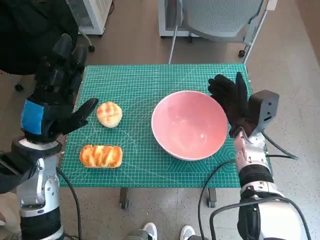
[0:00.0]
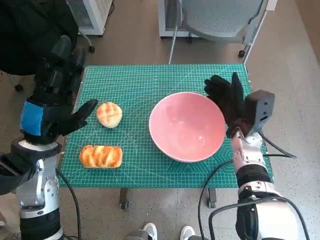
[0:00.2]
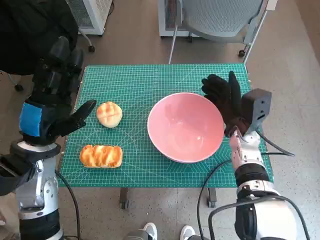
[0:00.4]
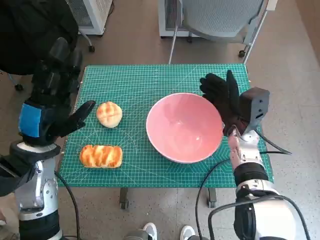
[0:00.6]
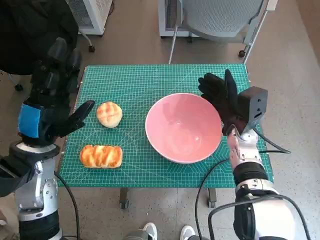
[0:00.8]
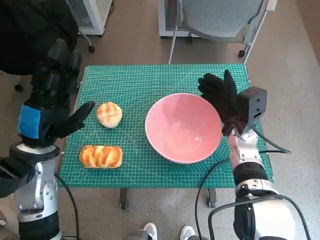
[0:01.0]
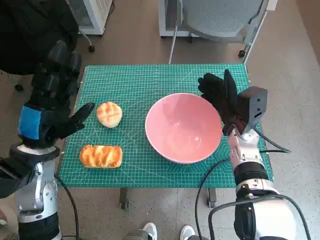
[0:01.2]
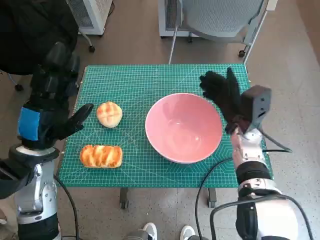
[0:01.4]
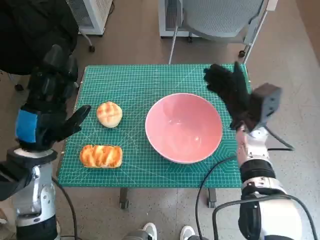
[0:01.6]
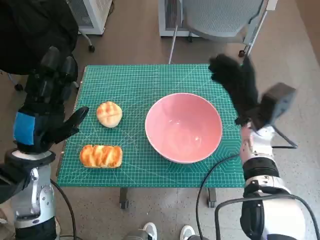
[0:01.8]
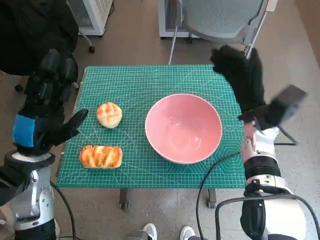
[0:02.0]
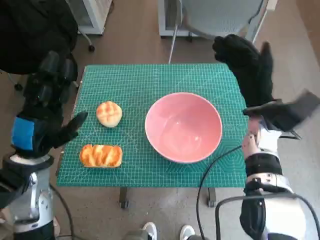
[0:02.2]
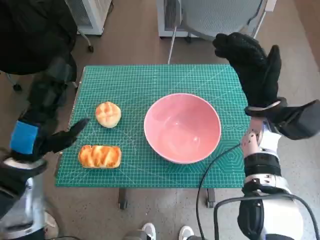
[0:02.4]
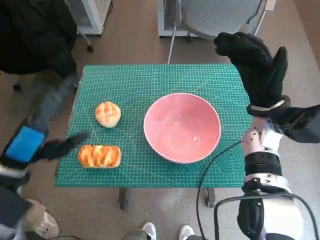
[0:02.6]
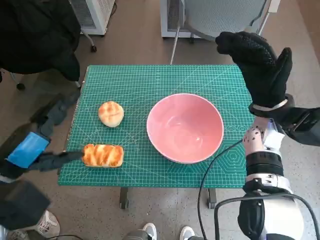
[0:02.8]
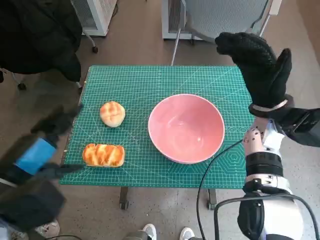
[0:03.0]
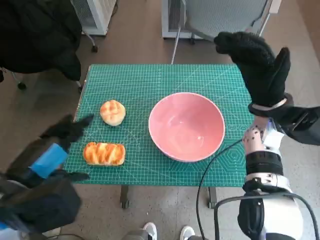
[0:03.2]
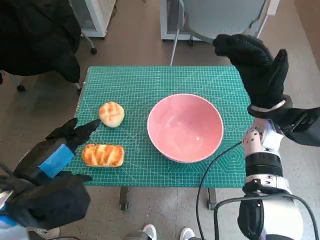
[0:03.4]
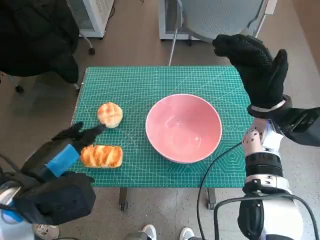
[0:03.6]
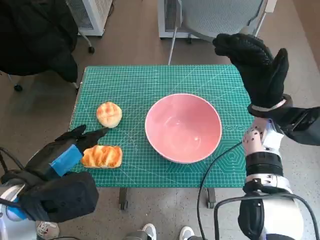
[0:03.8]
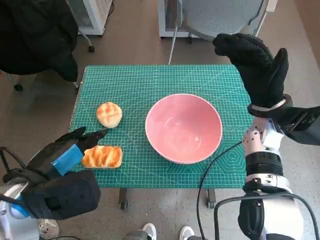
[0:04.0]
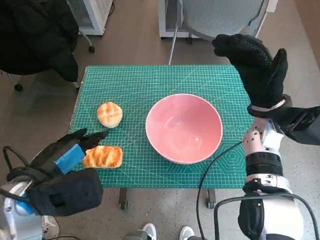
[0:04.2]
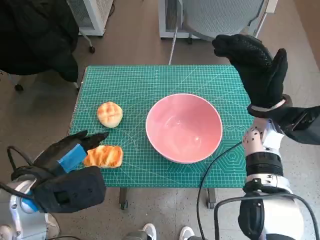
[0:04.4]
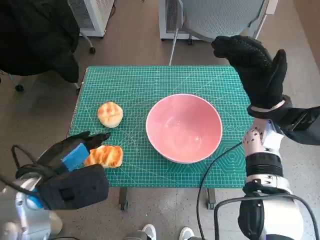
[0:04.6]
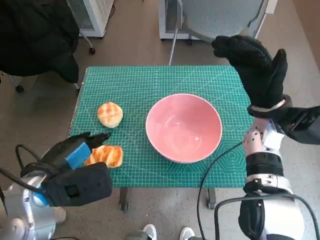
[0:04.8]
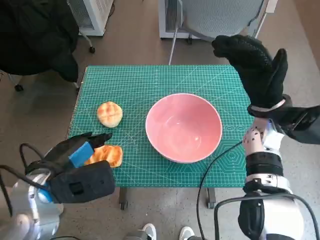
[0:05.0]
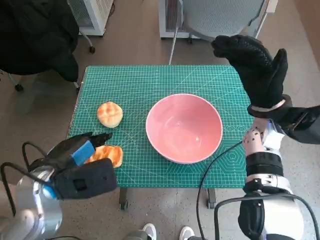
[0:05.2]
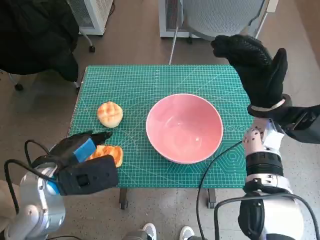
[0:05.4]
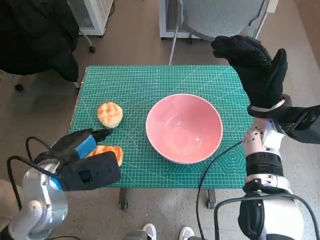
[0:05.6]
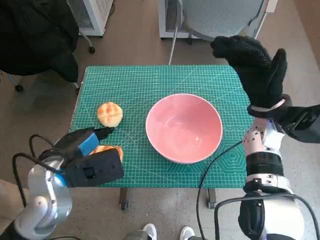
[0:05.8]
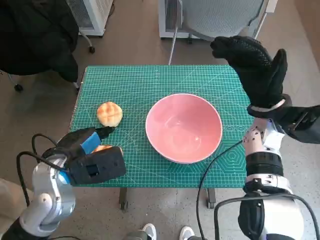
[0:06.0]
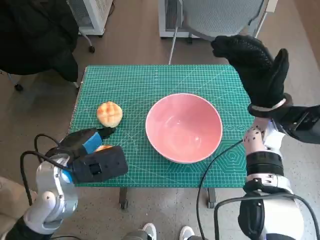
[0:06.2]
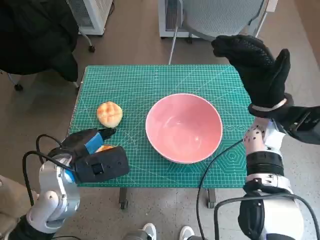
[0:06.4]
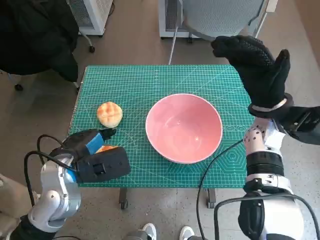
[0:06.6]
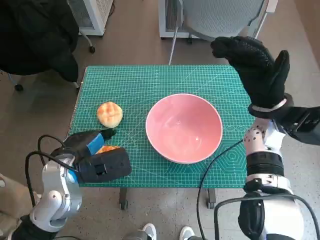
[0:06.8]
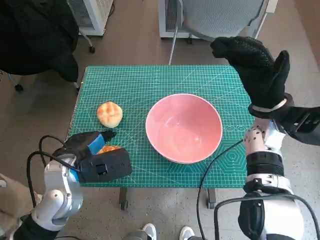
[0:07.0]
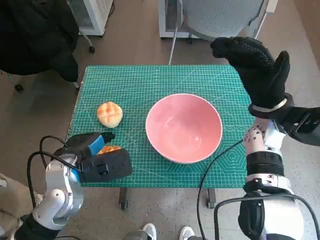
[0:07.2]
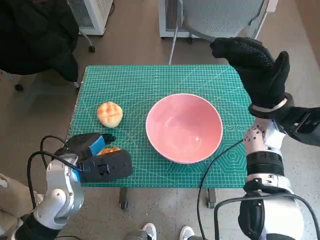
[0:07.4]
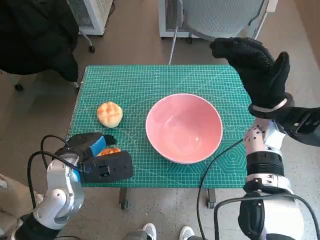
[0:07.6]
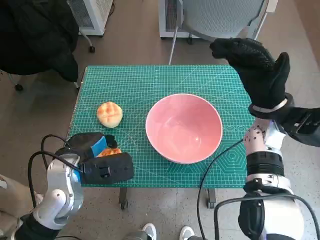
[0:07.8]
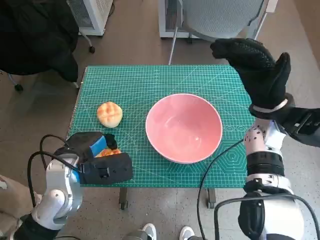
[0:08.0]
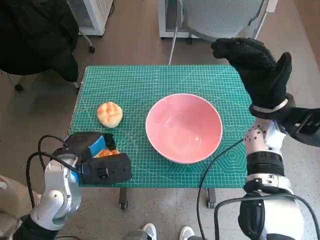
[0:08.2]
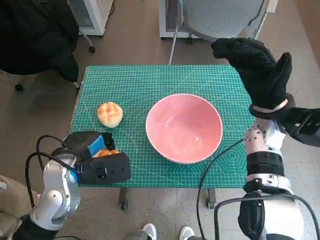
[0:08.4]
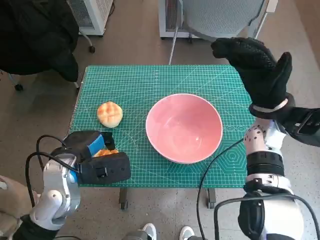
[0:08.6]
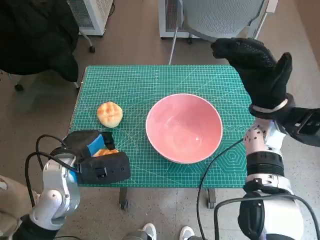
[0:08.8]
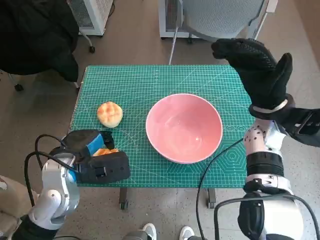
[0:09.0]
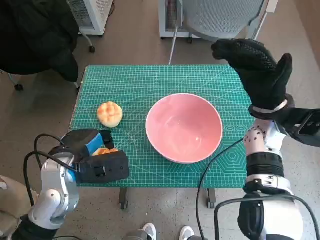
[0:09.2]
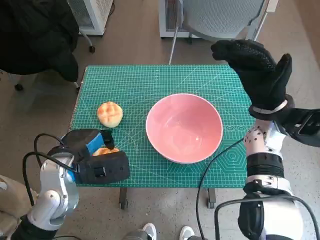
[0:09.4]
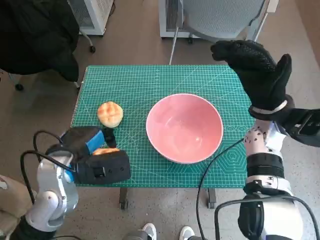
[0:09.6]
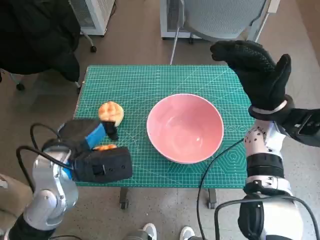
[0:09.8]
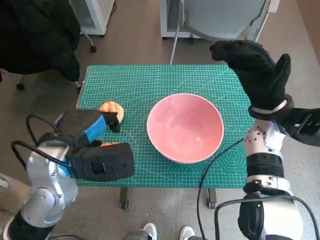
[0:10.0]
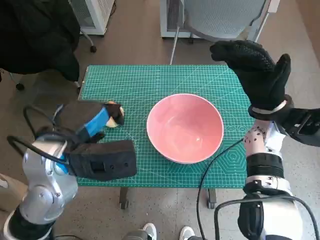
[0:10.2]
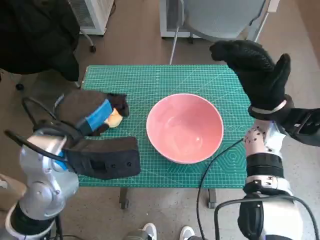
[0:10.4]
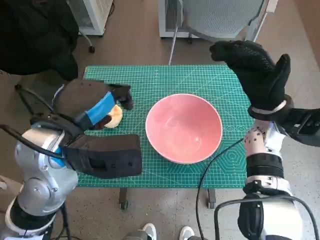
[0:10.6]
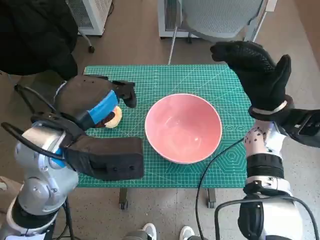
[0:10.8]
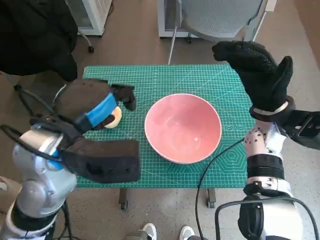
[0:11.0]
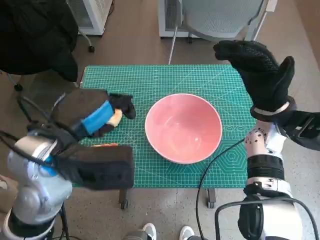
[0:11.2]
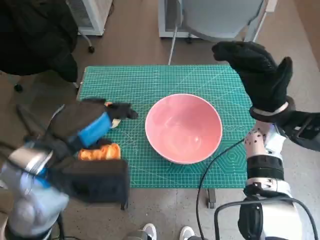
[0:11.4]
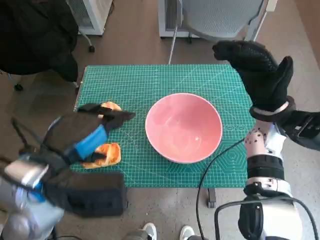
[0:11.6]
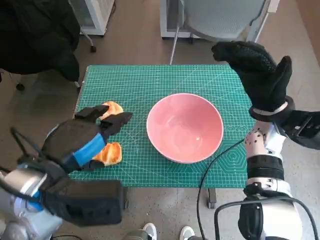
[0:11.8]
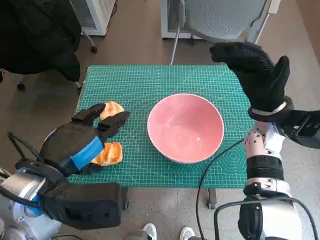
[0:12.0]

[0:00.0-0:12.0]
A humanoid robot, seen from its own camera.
0:00.0 to 0:01.6: The hands stay close to where they were, moving slightly.
0:01.6 to 0:03.0: The left hand heads backward, covering about 5 cm; the right hand travels upward by roughly 5 cm.
0:04.4 to 0:06.0: The left hand changes place by roughly 5 cm.
0:06.0 to 0:07.6: The hands make only small movements.
0:07.6 to 0:09.0: Both hands stay put.
0:09.0 to 0:10.4: The left hand goes approximately 10 cm upward.
0:10.4 to 0:12.0: The left hand moves backward, approximately 5 cm.

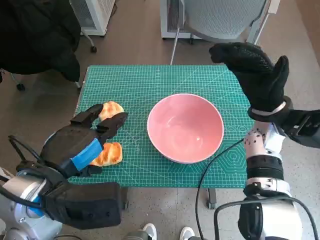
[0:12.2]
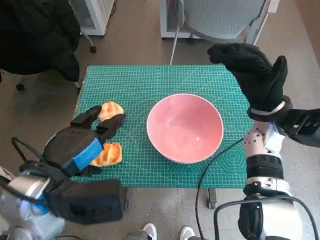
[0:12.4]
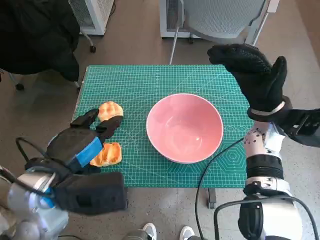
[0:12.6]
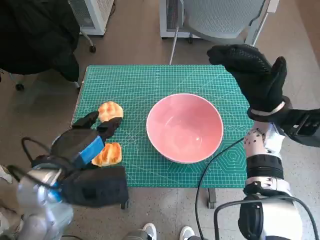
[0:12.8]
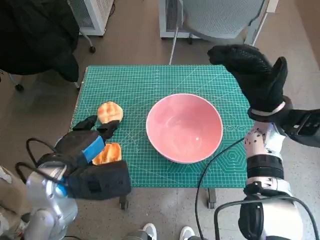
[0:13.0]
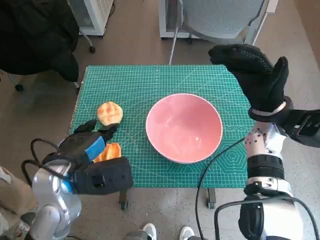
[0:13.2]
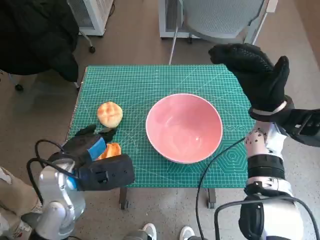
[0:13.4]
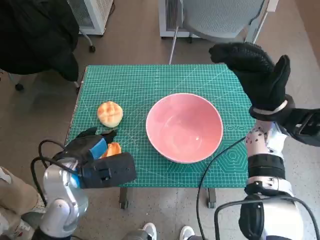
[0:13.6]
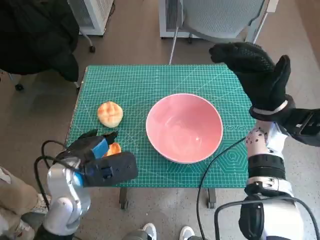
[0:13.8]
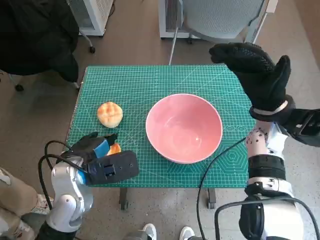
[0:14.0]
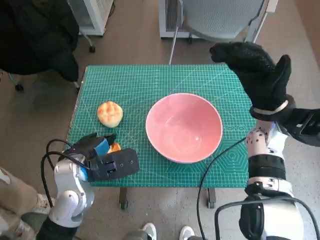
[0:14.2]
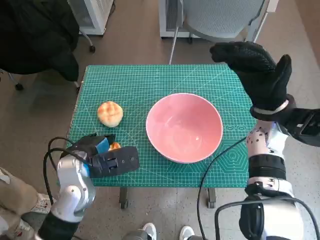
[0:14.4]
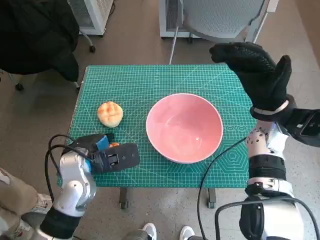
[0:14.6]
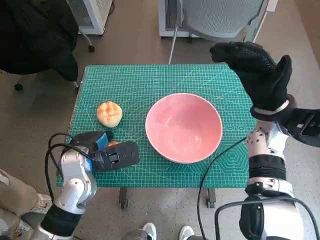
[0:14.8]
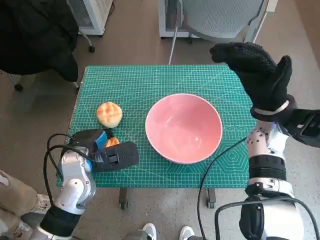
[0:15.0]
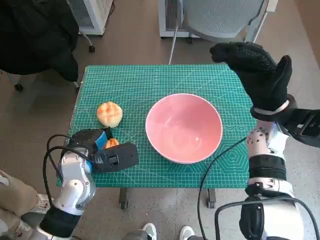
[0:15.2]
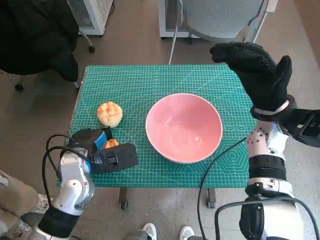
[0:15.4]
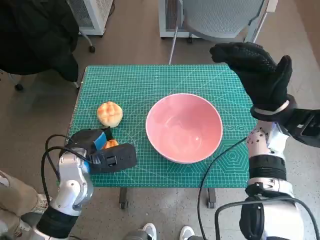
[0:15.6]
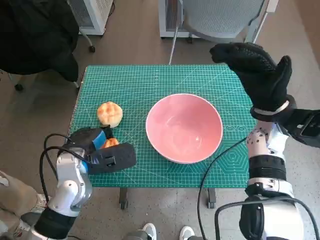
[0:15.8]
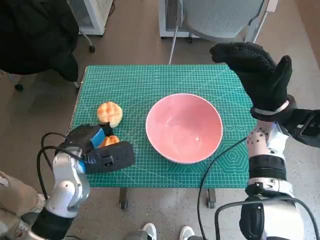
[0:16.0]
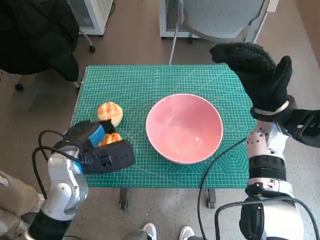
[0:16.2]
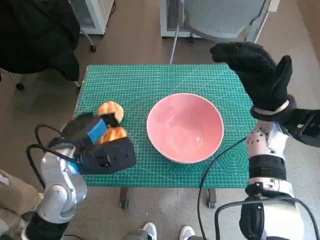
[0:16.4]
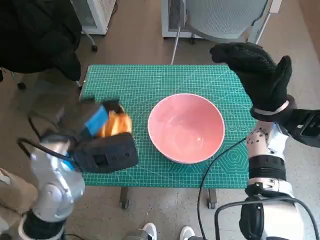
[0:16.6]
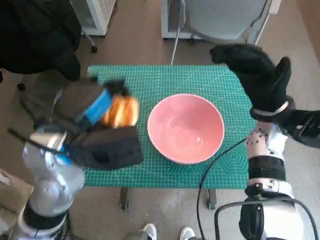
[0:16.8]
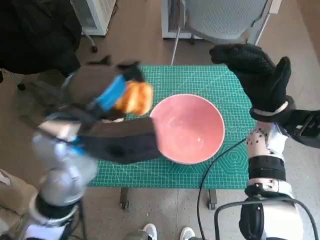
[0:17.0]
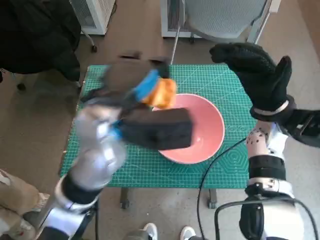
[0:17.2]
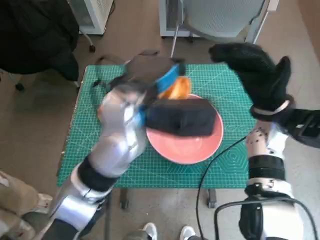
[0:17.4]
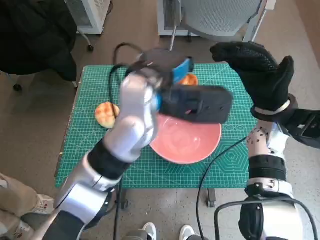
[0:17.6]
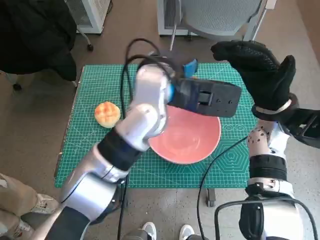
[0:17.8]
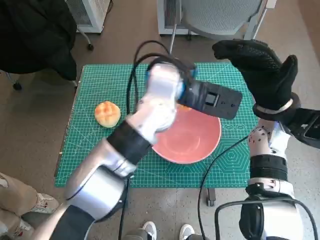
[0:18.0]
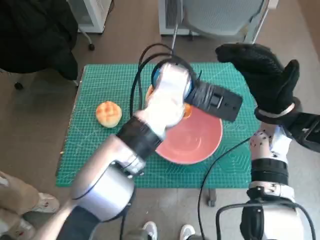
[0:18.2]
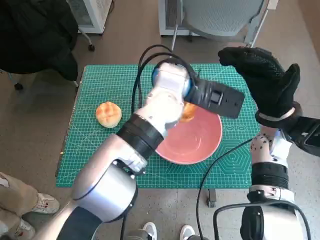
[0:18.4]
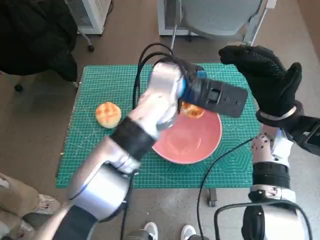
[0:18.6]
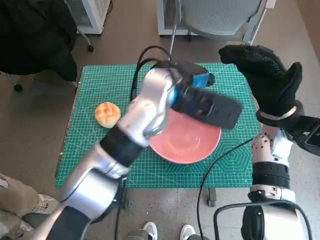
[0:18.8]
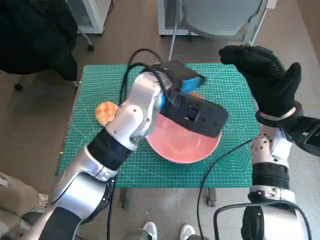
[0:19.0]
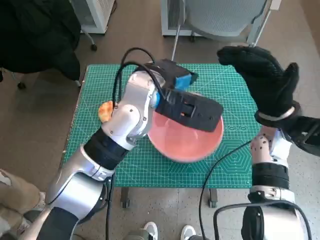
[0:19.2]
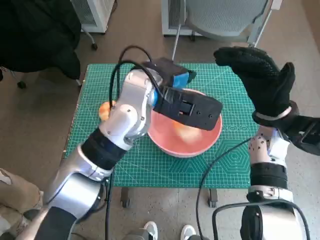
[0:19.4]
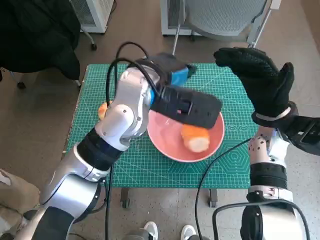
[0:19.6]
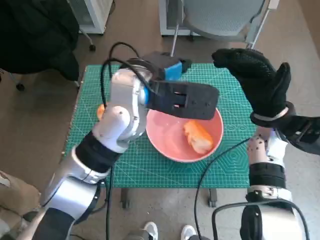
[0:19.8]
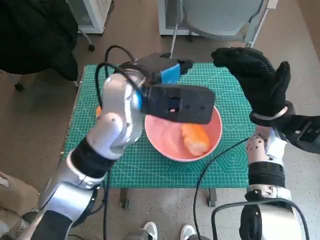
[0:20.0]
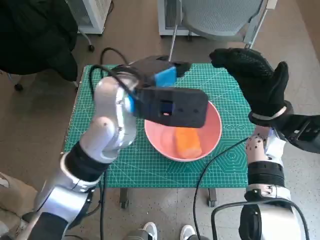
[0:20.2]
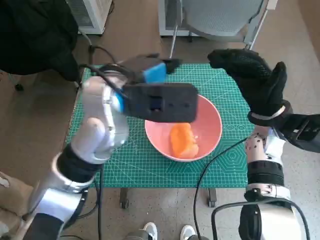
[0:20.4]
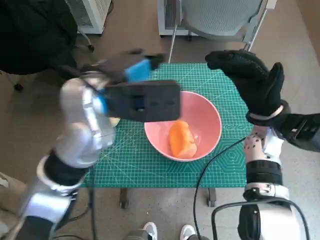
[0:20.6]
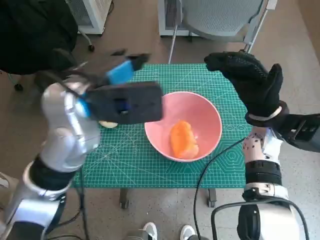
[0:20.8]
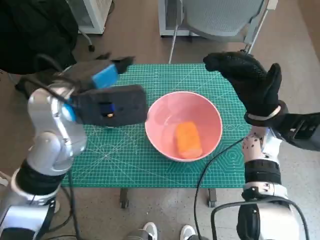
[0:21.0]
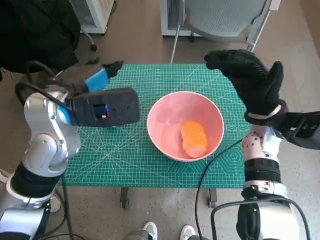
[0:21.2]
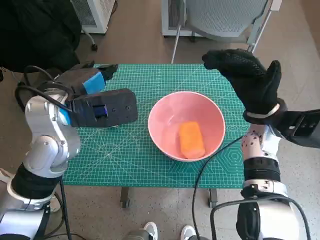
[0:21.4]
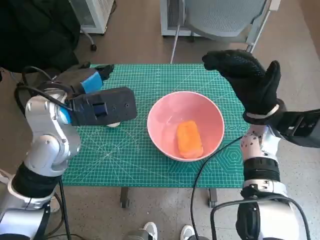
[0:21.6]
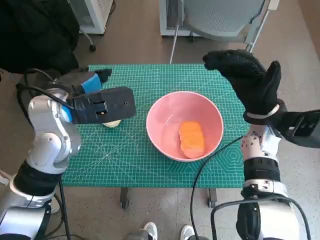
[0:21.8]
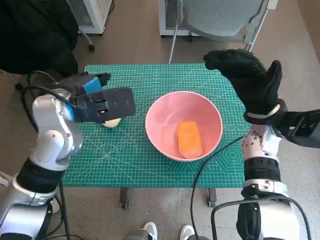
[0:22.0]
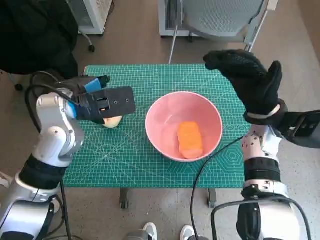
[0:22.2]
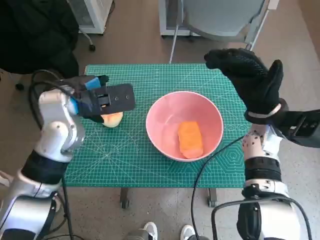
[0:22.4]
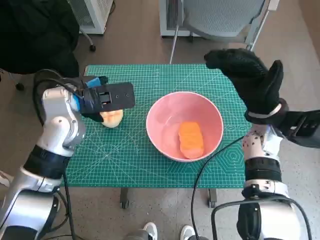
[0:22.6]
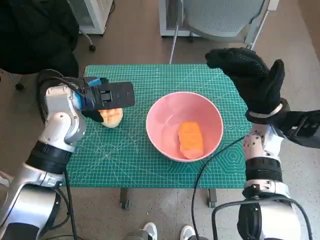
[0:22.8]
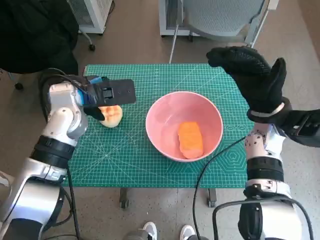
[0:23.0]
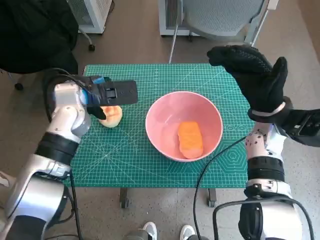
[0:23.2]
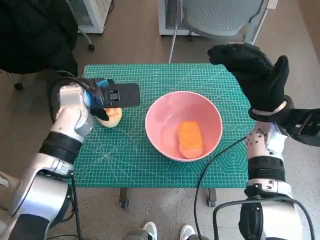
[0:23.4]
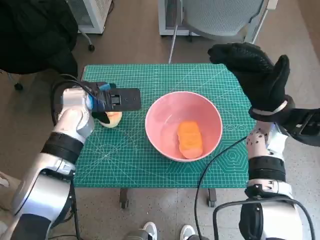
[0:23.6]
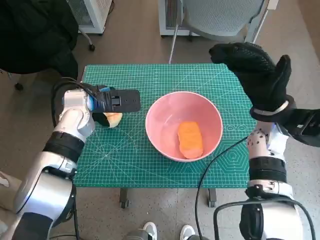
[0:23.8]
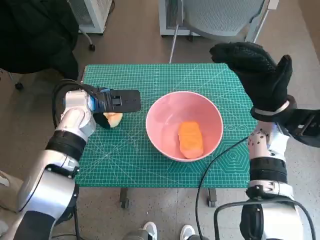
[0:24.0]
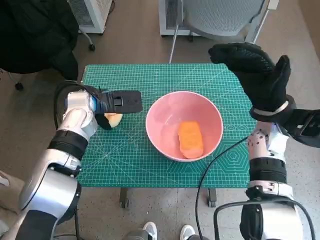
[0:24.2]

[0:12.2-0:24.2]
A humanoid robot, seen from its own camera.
Step, 0:12.2 to 0:15.2: Grasp the long bread with left hand.
Step, 0:15.4 to 0:19.4: Place the long bread in pink bowl with left hand.
0:12.2 to 0:13.8: The left hand goes roughly 10 cm downward and forward.
0:13.8 to 0:15.2: The left hand ends up some 5 cm from where it was.
0:15.2 to 0:16.6: The left hand travels upward by about 10 cm.
0:16.6 to 0:18.2: The left hand travels to the right and forward by some 20 cm.
0:18.2 to 0:19.8: The left hand shifts some 5 cm to the left.
0:19.8 to 0:21.2: The left hand moves to the left, about 10 cm.
0:21.2 to 0:22.6: The left hand ends up some 5 cm from where it was.
0:22.6 to 0:24.2: The left hand travels downward by some 5 cm.
